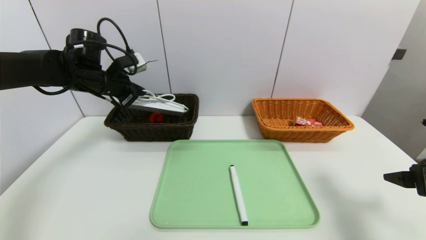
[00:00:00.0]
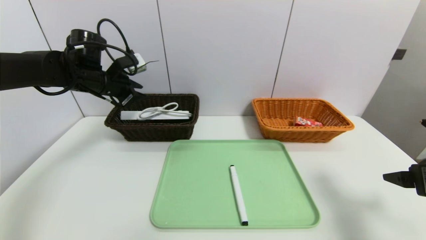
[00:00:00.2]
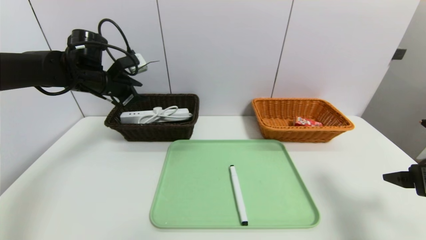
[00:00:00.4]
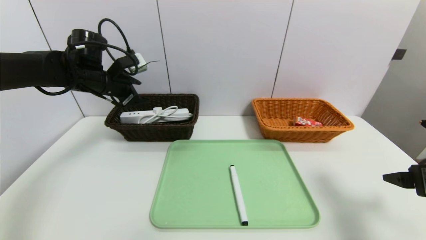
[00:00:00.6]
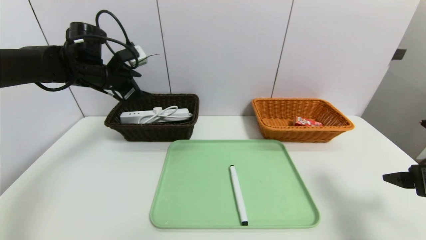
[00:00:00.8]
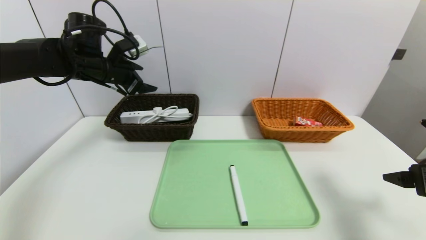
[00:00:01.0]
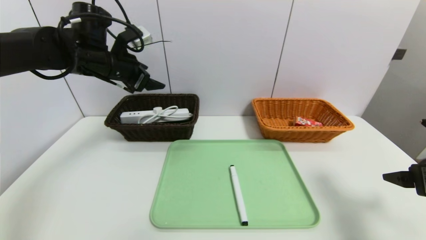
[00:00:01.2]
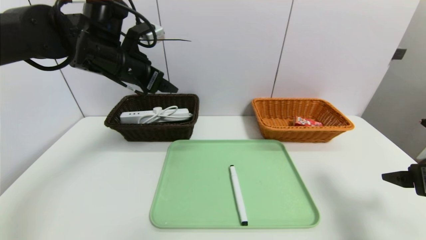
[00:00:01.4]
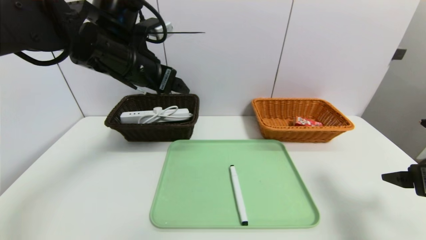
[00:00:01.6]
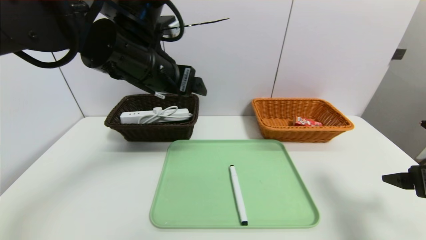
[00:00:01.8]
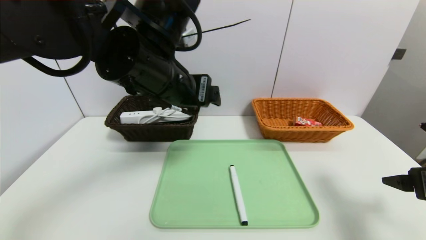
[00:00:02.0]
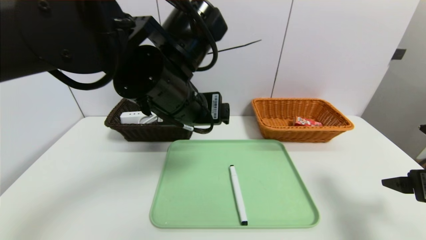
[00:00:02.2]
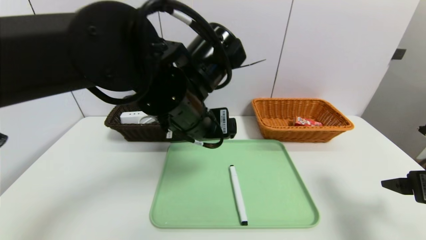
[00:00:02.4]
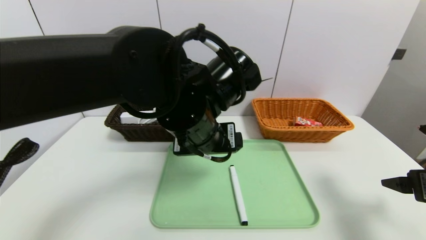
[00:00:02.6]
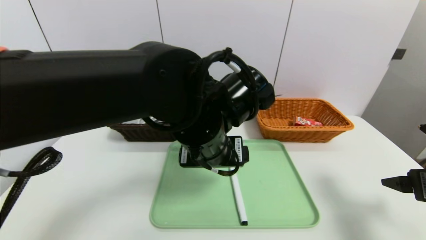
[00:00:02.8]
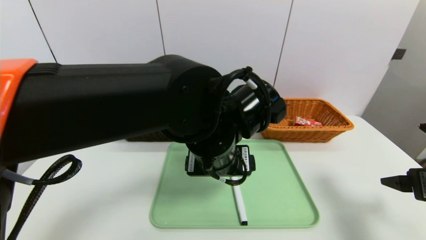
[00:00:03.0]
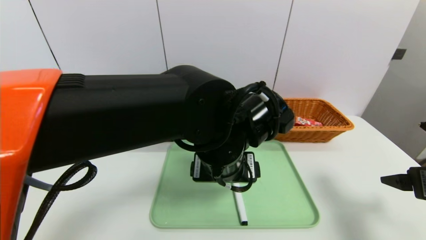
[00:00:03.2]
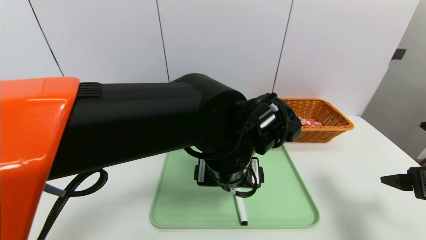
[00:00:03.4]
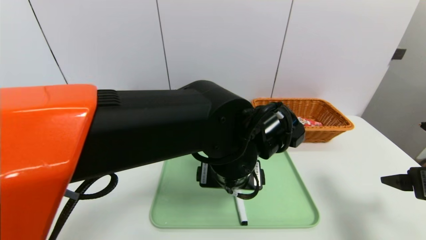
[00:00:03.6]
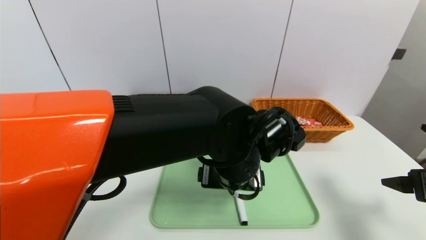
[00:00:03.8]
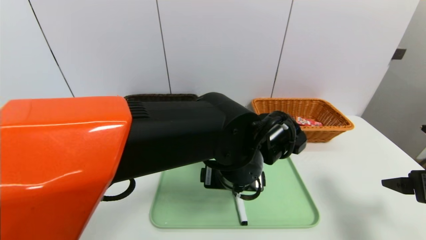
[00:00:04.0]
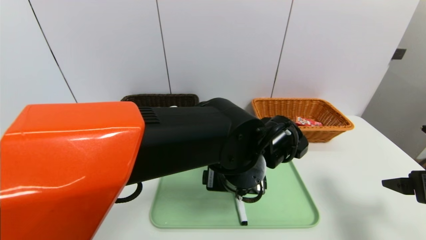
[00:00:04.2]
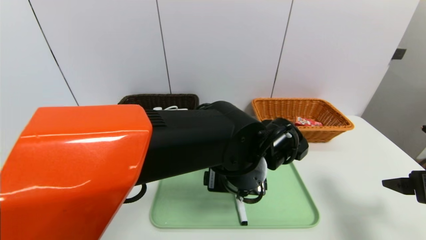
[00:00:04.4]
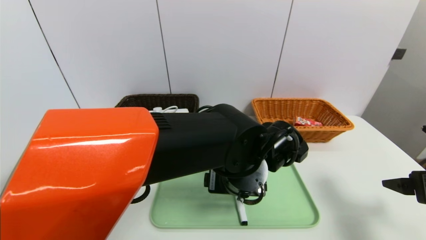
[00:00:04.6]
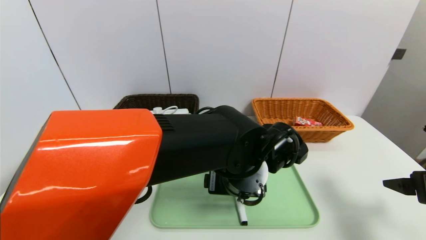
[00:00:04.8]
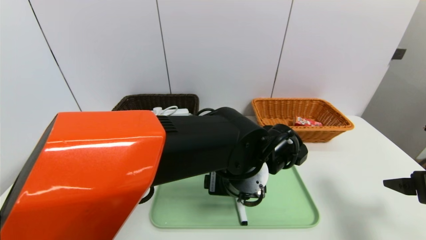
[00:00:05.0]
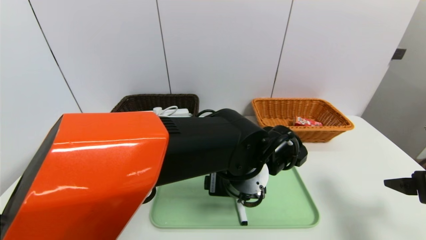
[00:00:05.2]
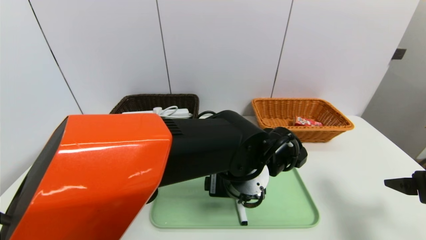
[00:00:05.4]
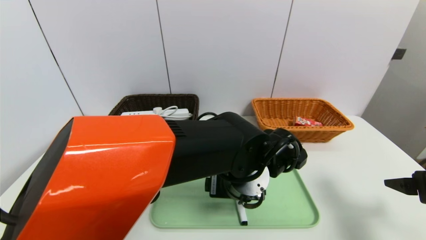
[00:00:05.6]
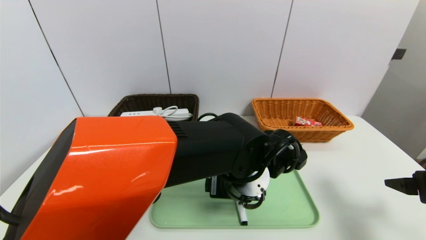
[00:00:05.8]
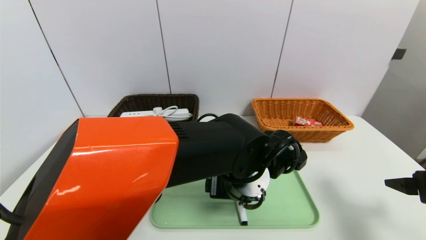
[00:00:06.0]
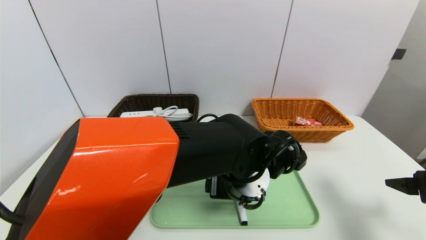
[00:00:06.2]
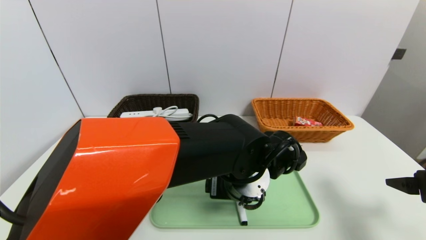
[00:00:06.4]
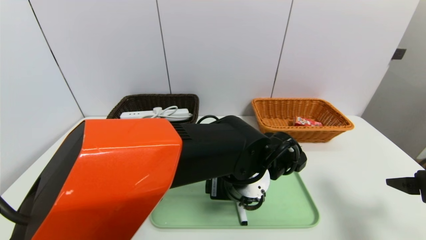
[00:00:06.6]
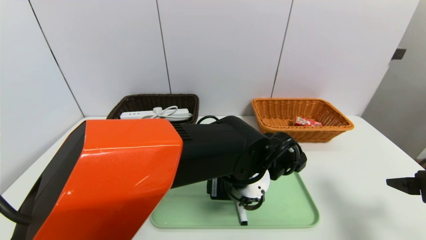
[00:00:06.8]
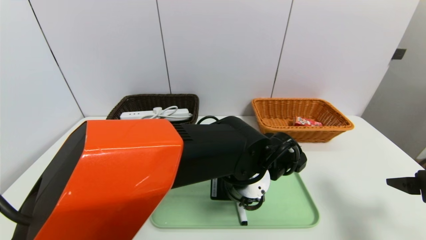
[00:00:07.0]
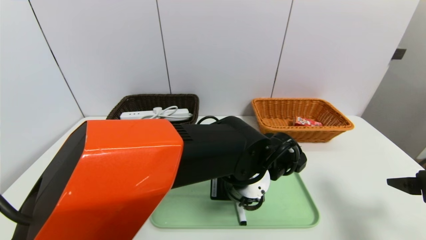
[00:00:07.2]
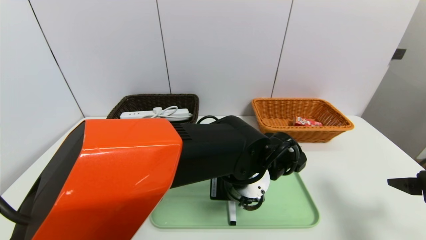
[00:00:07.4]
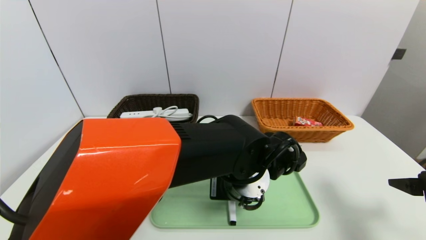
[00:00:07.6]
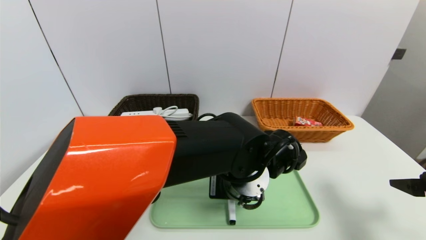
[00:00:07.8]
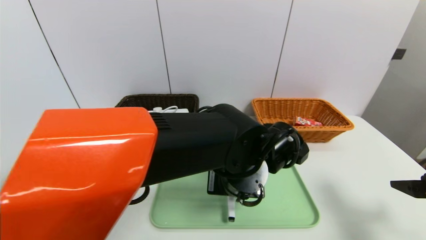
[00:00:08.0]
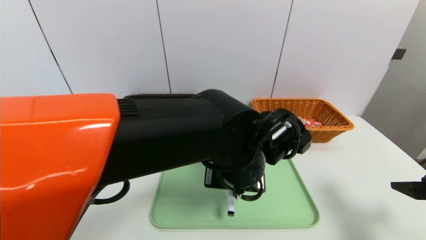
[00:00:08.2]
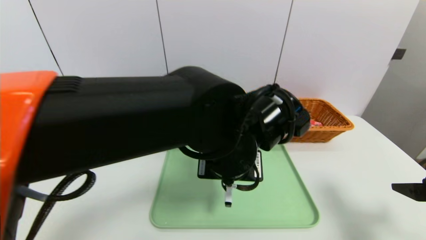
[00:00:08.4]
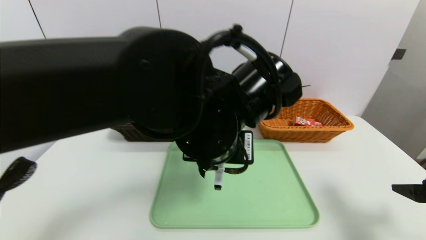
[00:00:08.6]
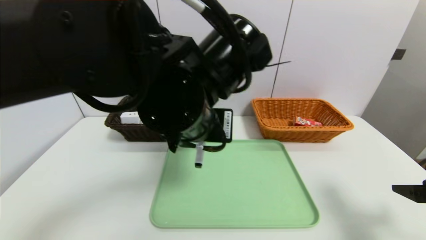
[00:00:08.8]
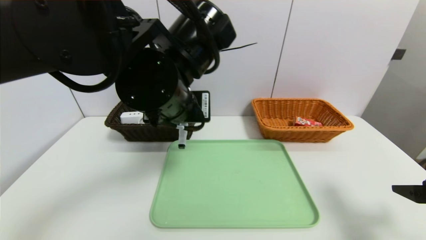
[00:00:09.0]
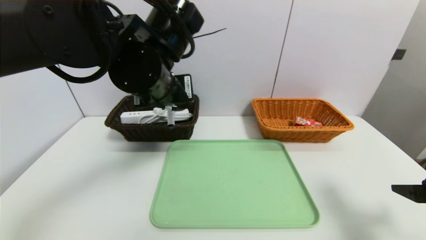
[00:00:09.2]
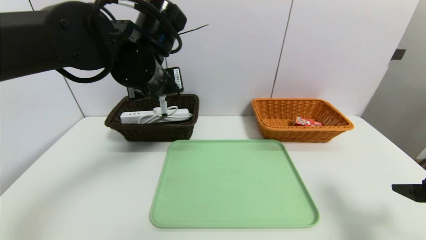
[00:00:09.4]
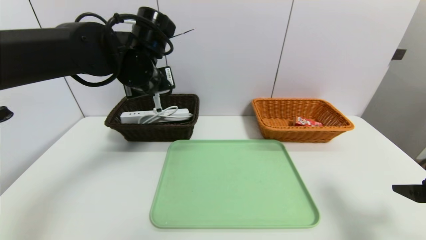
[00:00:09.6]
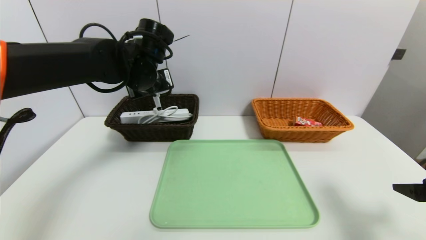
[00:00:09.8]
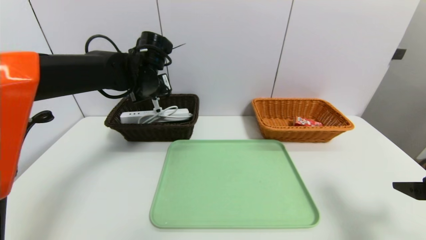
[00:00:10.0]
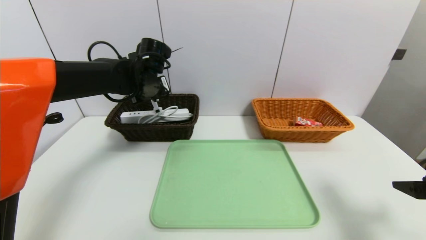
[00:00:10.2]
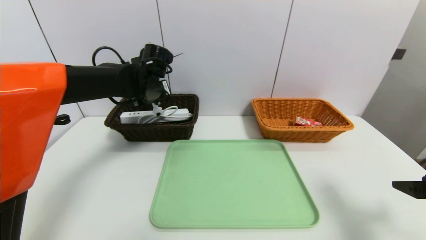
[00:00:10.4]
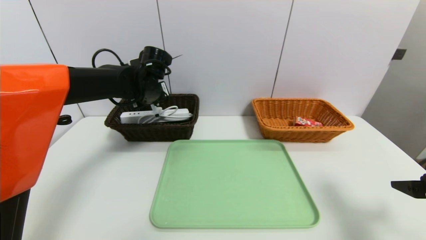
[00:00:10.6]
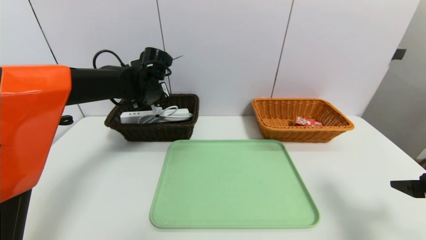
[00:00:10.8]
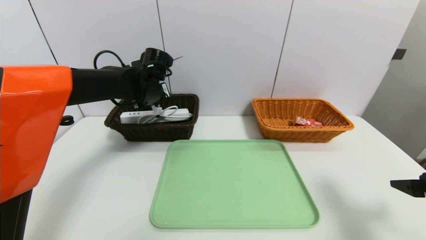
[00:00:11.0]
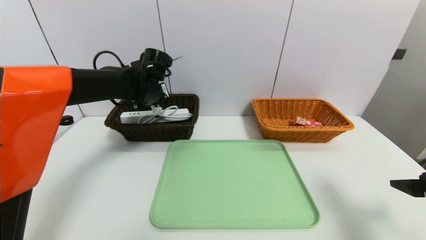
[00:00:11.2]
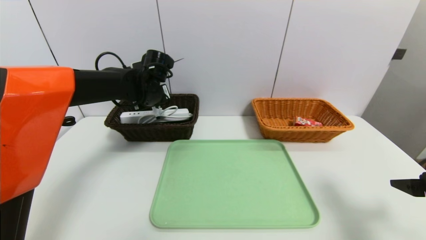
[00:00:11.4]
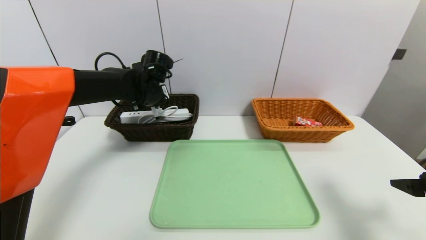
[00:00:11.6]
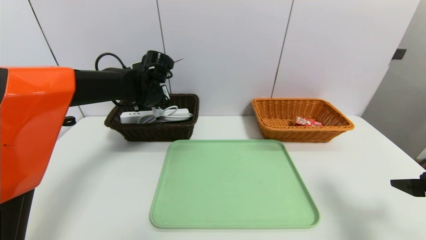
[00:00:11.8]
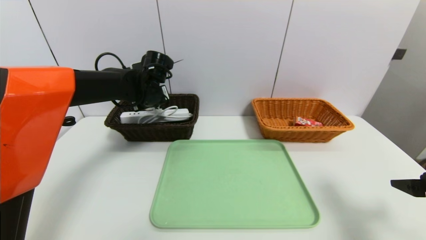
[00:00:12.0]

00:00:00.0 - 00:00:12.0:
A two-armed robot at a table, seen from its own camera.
Task of the whole recording: place the food in the right basket with the right gripper, and place the non food items in the left basket with the left gripper.
00:00:00.0 - 00:00:01.6: The left gripper travels to the right, backward and upward by approximately 20 cm, and opens.
00:00:01.6 - 00:00:03.0: The left gripper is displaced to the right, downward and backward by about 20 cm.
00:00:03.0 - 00:00:04.4: The left gripper heads downward, covering about 5 cm.
00:00:04.4 - 00:00:06.0: The grippers stay close to where they were, moving slightly.
00:00:06.0 - 00:00:07.6: The left gripper closes.
00:00:07.6 - 00:00:09.0: The left gripper moves upward and to the left, some 20 cm.
00:00:09.0 - 00:00:10.4: The left gripper travels forward and to the left by about 20 cm.
00:00:10.4 - 00:00:12.0: The left gripper opens.

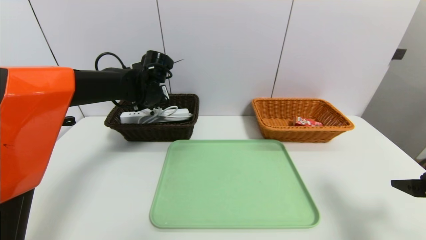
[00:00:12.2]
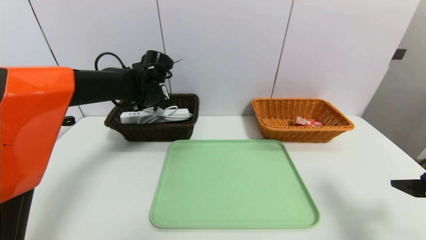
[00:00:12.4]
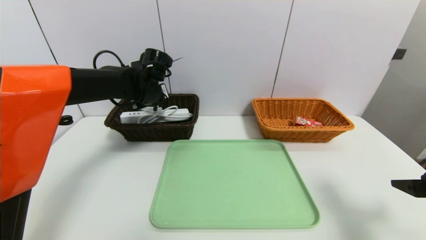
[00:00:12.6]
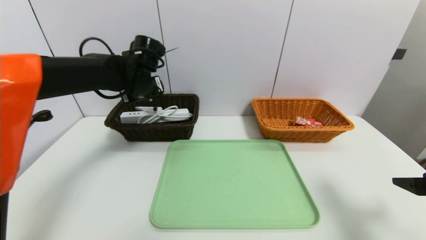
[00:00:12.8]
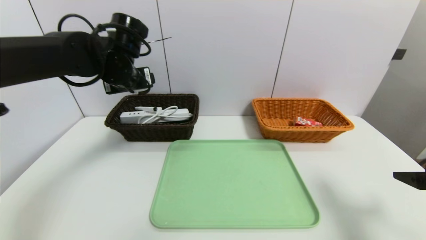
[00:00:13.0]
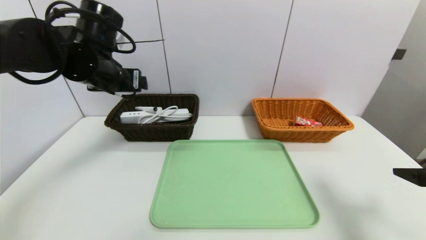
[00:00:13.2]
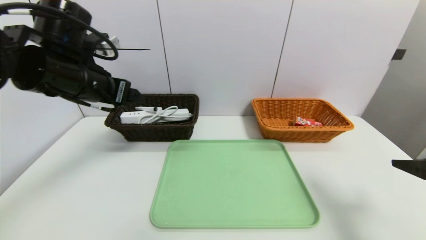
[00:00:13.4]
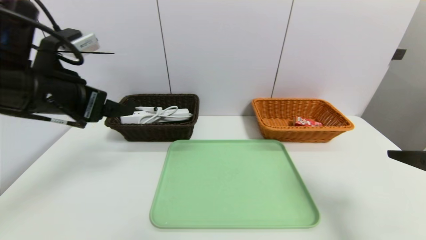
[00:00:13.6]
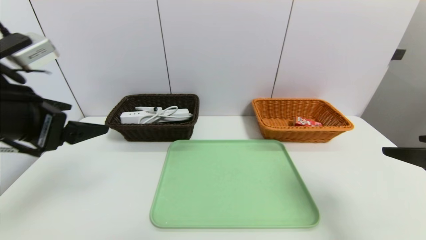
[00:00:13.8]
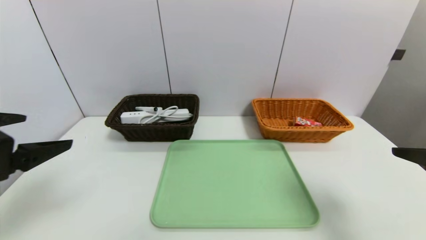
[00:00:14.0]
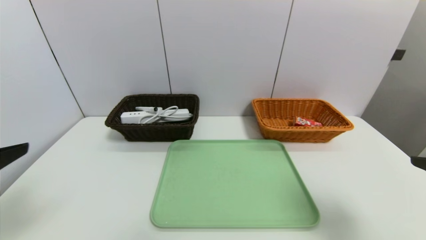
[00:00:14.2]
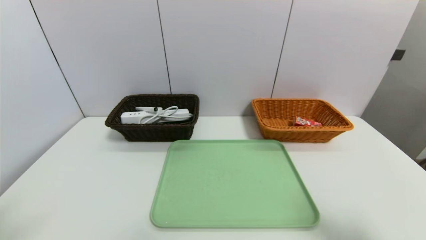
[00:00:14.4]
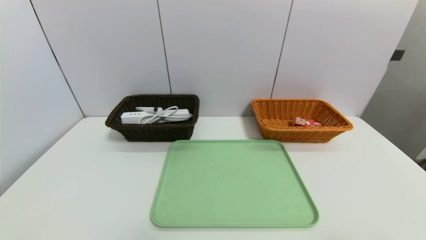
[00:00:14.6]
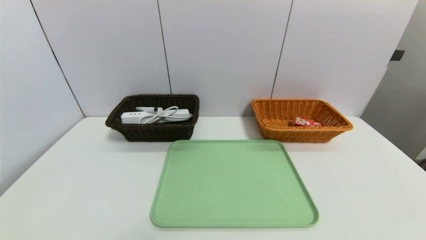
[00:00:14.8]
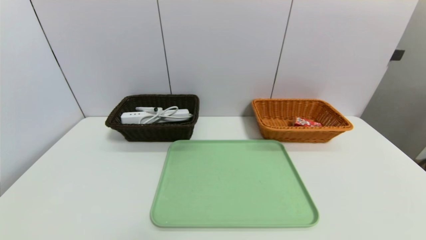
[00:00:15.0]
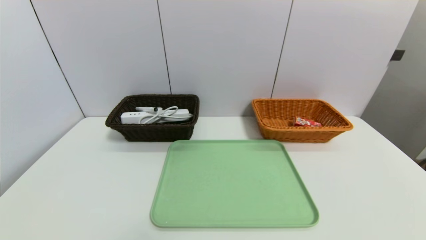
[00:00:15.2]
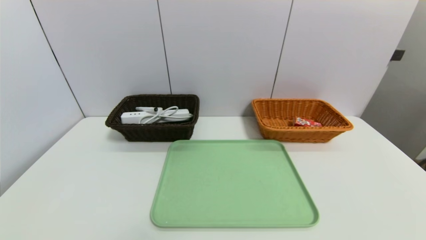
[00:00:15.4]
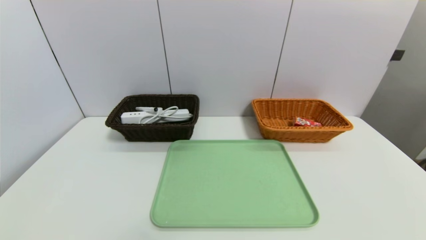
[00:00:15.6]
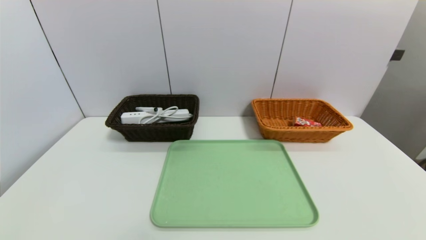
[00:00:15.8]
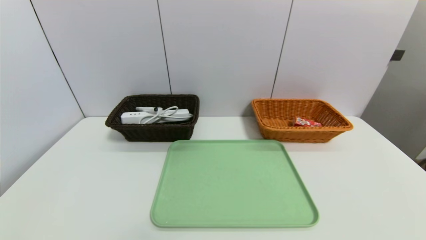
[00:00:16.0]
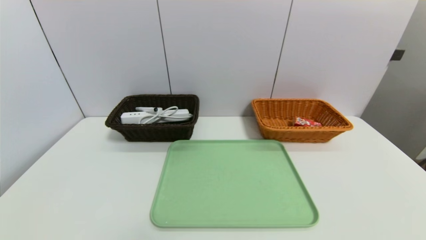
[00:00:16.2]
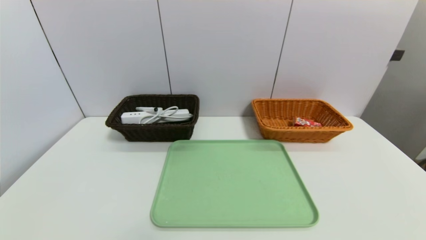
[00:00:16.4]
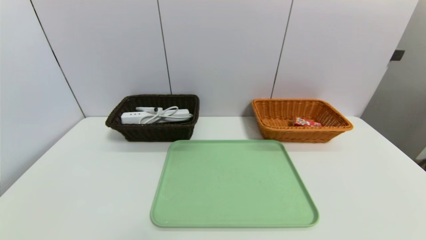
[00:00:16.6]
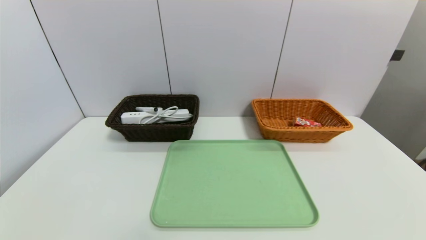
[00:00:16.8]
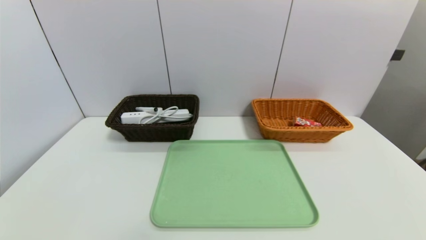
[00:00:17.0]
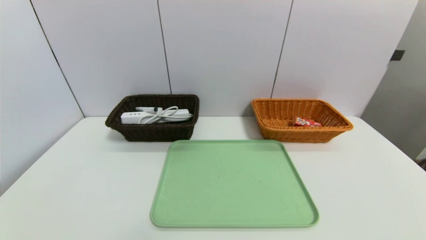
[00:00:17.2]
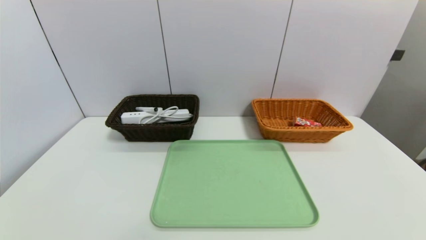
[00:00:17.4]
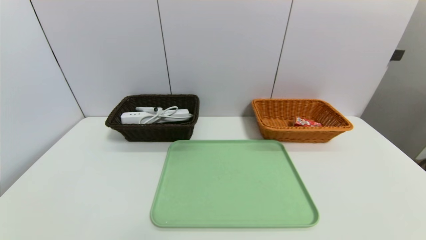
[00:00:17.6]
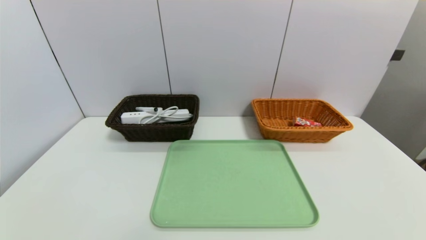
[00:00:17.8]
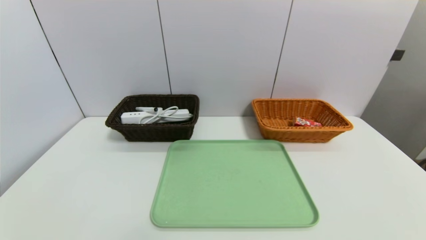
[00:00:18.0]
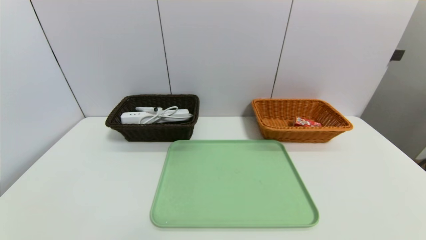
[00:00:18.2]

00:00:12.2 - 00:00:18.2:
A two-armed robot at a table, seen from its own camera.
Task of the whole recording: place the food in the right basket with the right gripper, and place the non food items in the left basket with the left gripper.
00:00:12.2 - 00:00:13.8: The left gripper goes about 25 cm backward, and opens its fingers. The right gripper shifts roughly 5 cm upward.
00:00:13.8 - 00:00:15.2: The two grippers go some 20 cm backward and downward.
